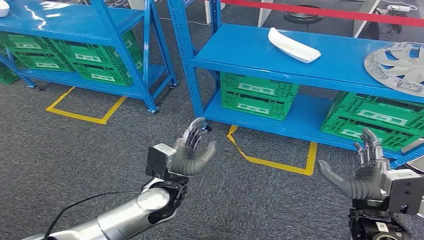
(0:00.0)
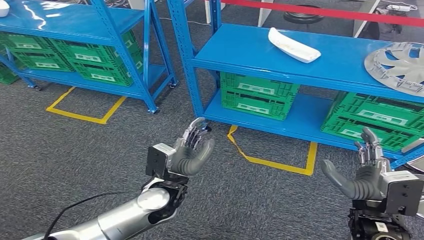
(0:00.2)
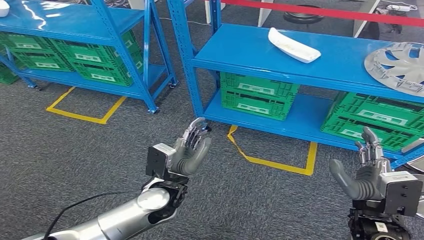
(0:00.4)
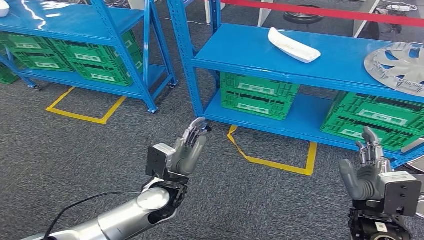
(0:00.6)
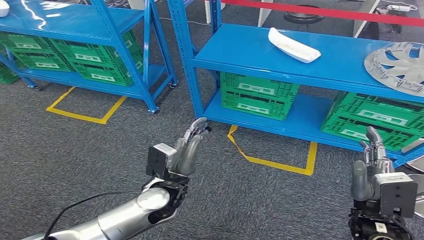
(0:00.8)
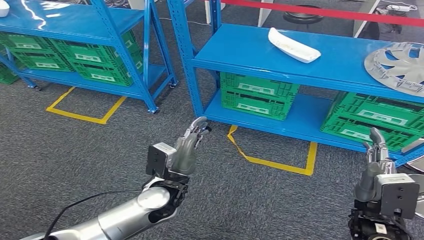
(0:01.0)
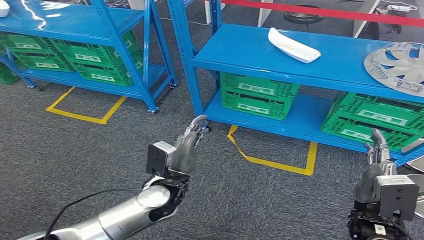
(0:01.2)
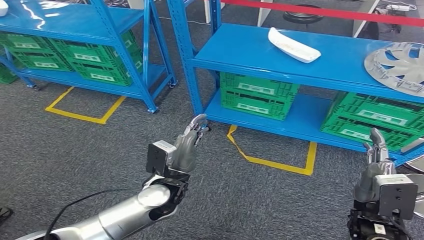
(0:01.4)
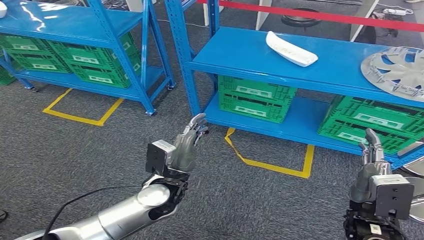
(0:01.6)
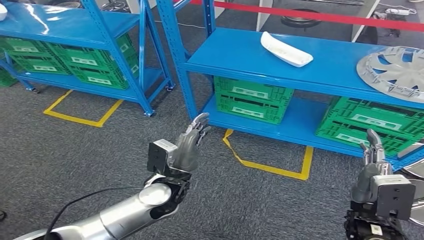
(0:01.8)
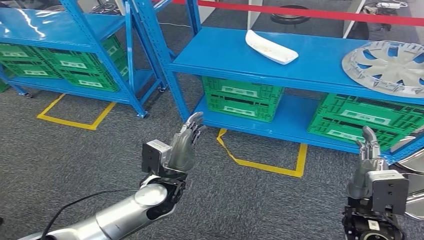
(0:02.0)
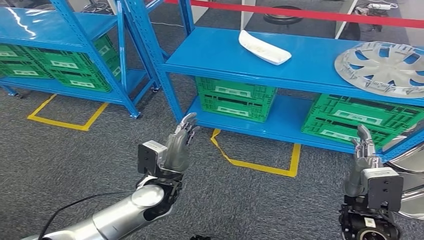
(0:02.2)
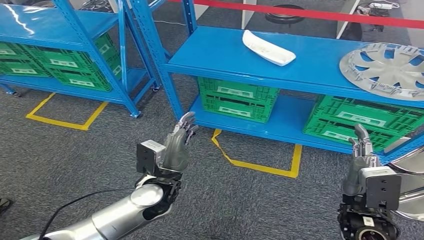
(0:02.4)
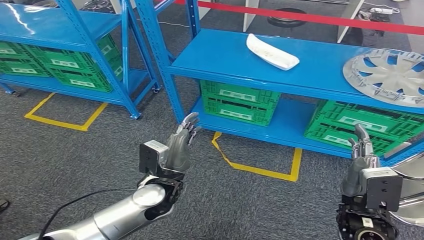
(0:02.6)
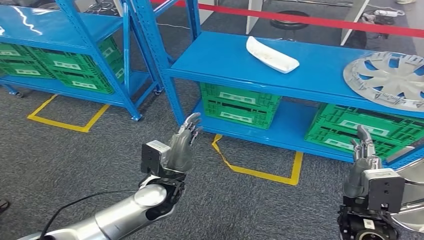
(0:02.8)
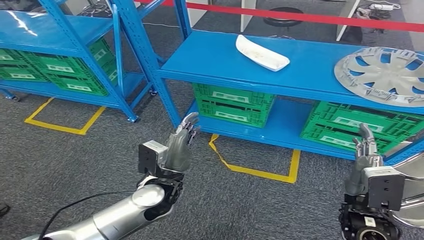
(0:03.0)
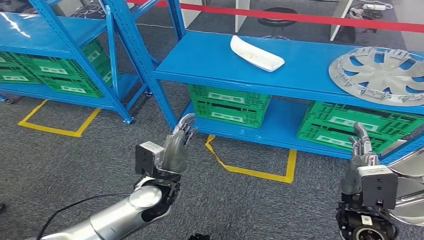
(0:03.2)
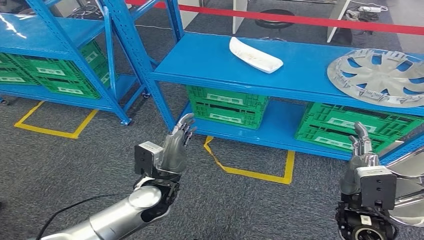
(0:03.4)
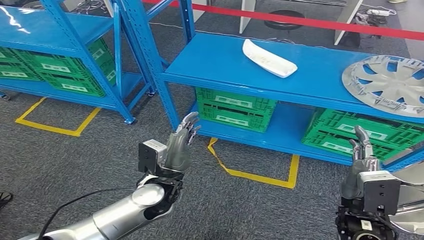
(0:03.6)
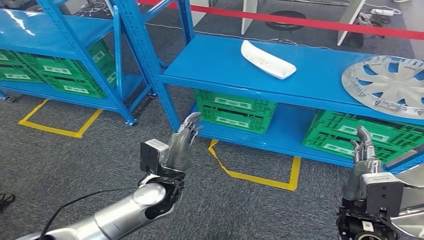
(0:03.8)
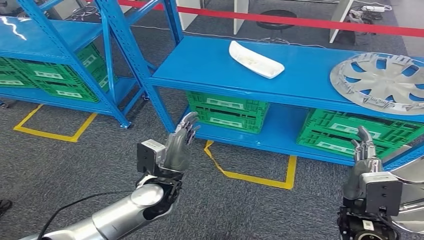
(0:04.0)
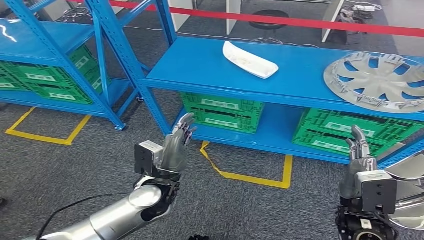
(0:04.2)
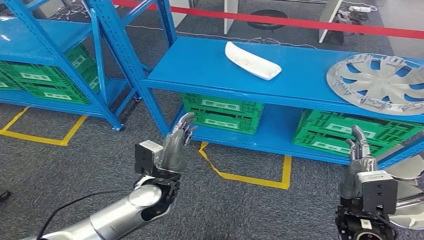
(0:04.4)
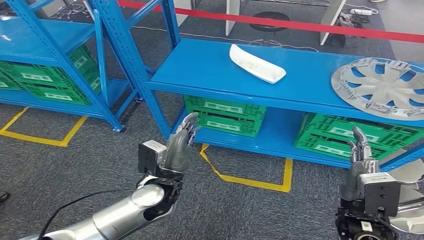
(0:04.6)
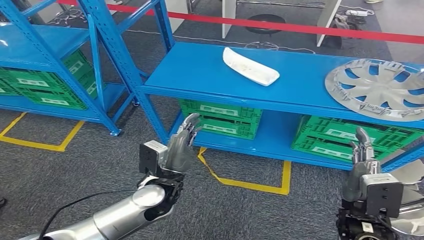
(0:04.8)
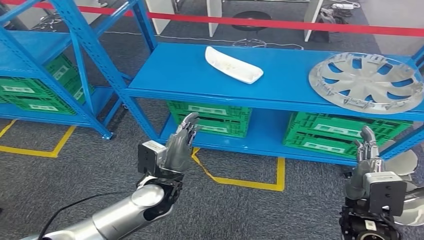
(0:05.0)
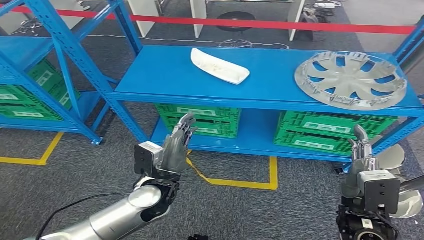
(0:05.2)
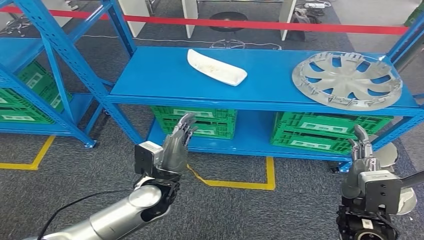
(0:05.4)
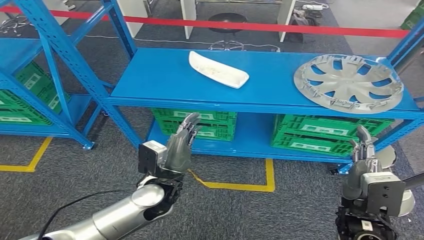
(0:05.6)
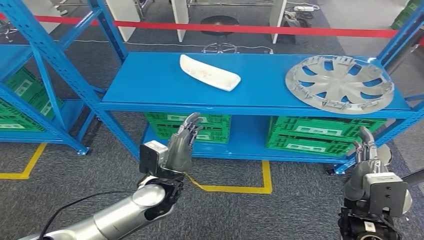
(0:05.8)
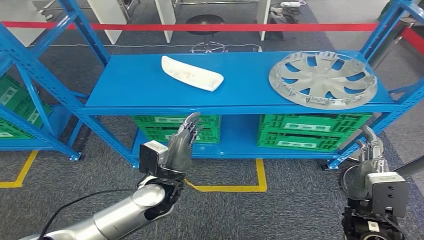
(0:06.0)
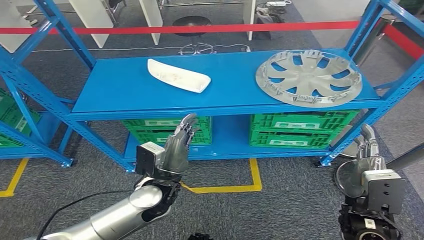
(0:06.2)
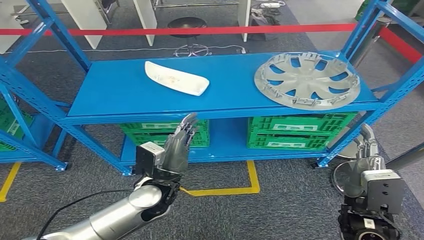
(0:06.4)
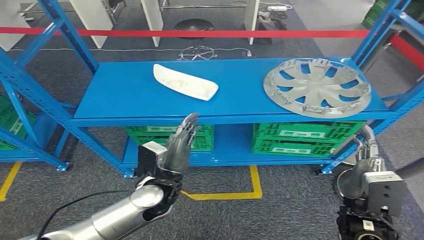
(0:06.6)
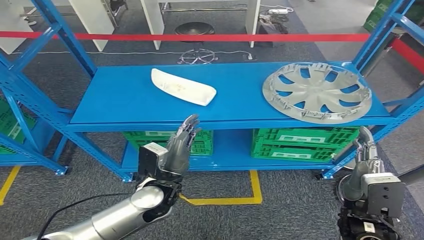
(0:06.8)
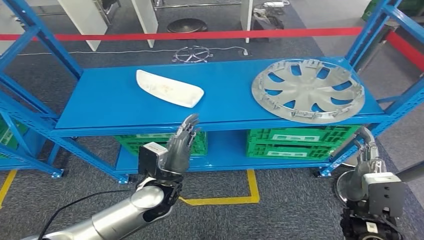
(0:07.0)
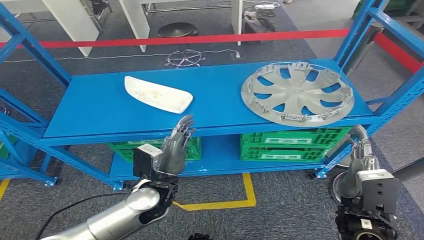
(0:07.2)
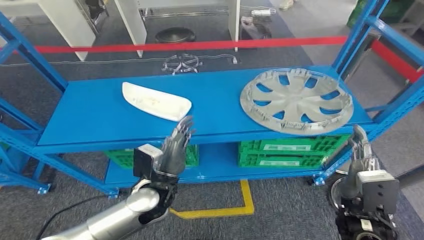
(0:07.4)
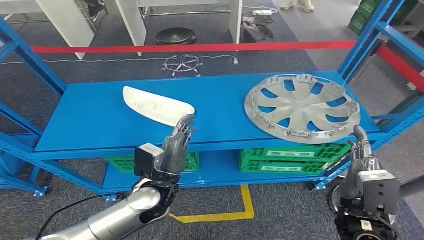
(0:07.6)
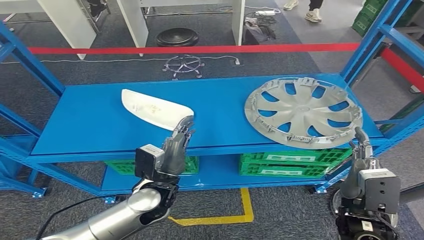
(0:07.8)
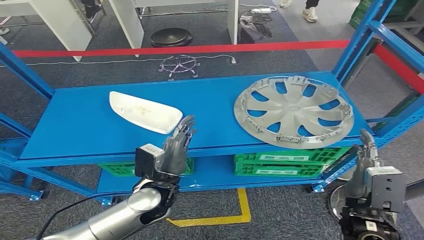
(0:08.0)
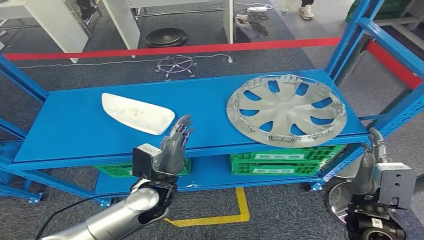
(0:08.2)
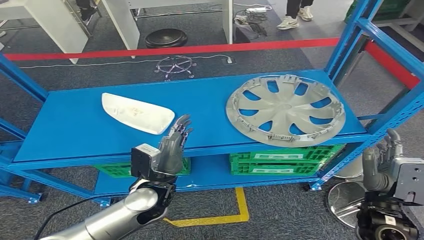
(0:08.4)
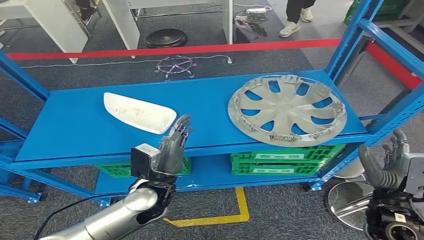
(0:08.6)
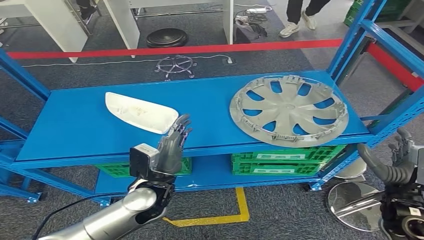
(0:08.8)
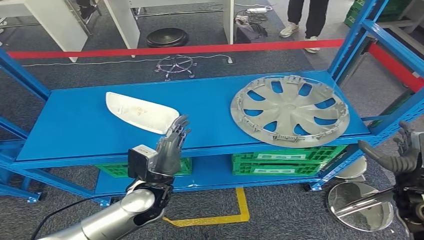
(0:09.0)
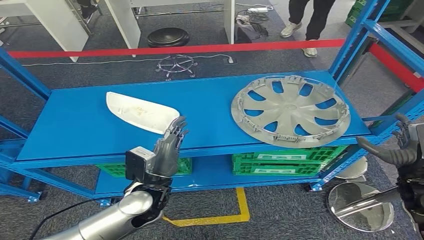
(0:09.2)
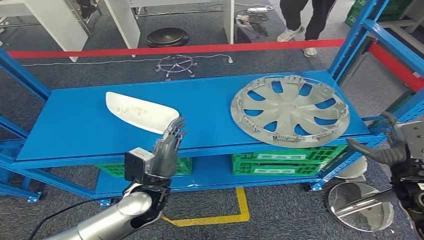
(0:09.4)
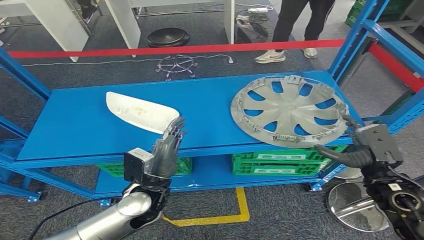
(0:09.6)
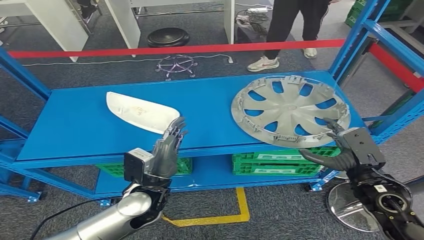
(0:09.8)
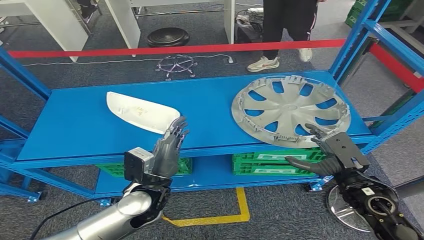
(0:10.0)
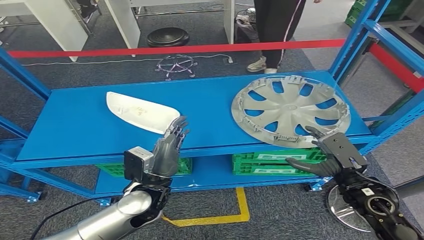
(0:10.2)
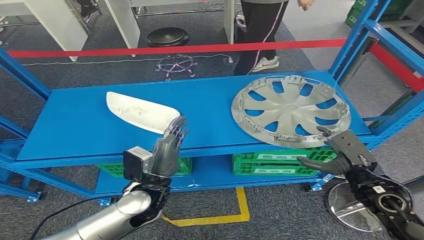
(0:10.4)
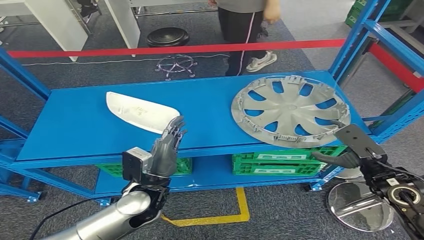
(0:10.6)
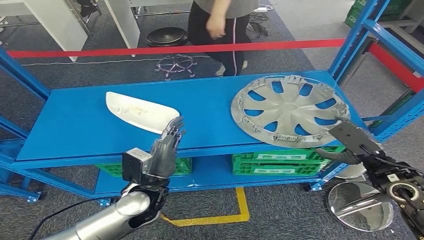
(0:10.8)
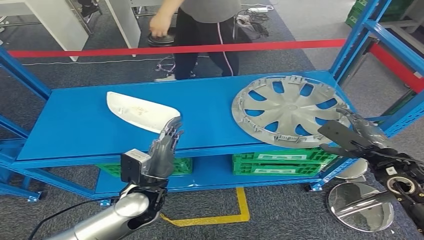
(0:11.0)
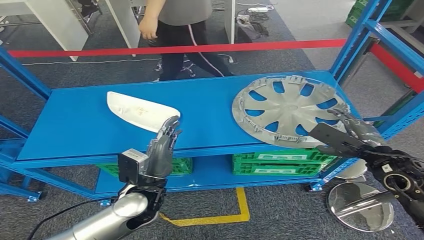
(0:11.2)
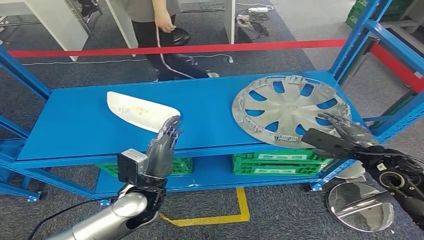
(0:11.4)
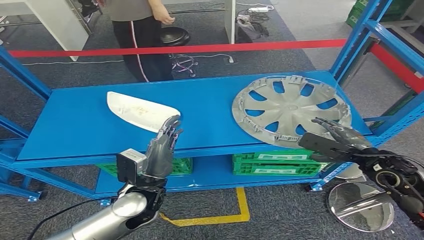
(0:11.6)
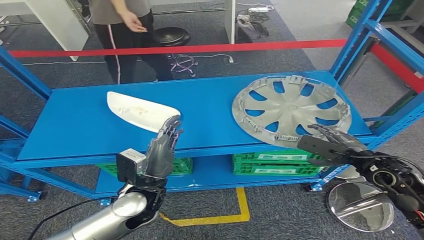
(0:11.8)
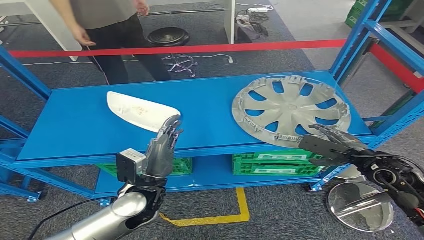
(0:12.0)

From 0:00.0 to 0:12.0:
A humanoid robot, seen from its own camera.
From 0:09.0 to 0:10.4: The right hand heads to the left, covering approximately 5 cm.
From 0:10.4 to 0:12.0: The right hand is displaced forward by about 5 cm.

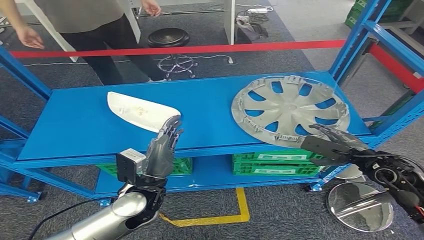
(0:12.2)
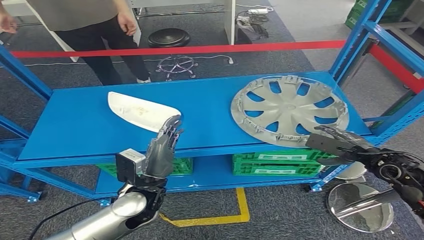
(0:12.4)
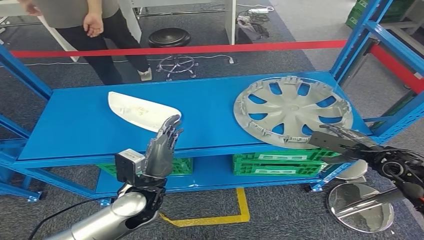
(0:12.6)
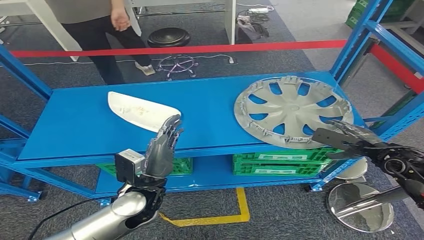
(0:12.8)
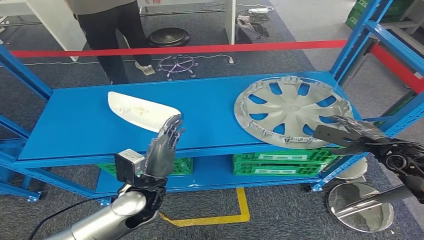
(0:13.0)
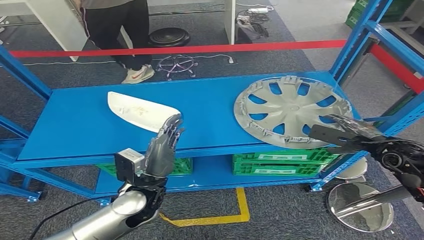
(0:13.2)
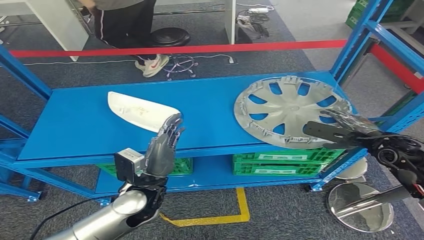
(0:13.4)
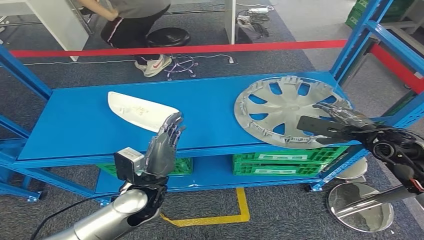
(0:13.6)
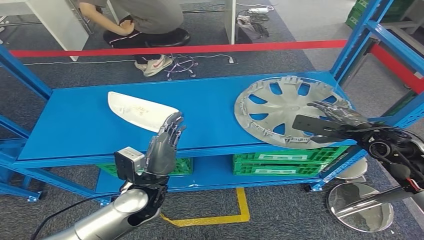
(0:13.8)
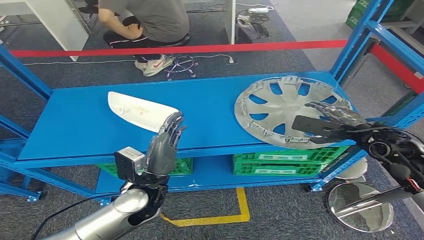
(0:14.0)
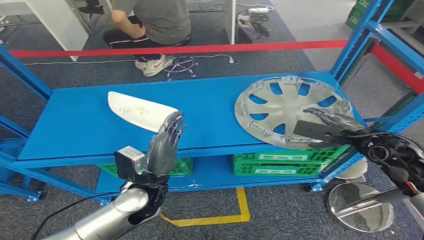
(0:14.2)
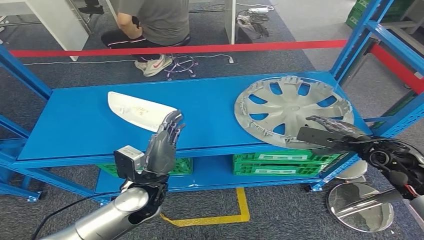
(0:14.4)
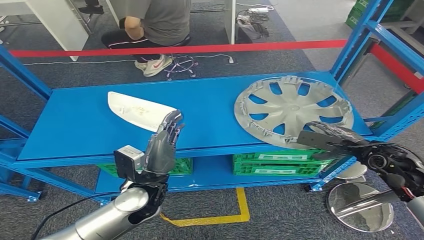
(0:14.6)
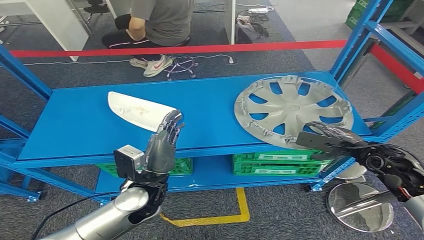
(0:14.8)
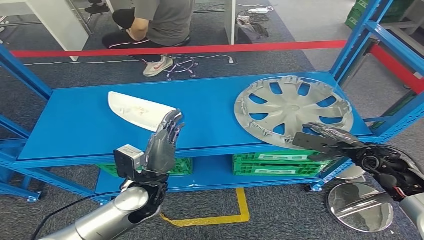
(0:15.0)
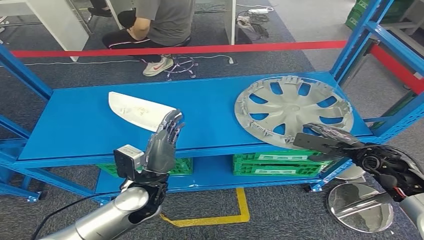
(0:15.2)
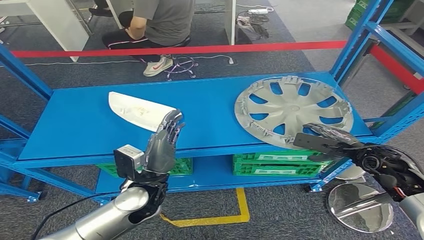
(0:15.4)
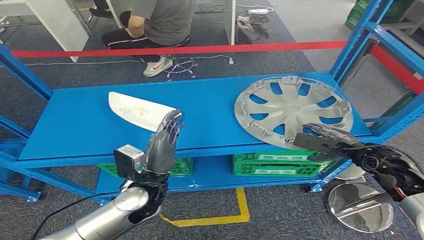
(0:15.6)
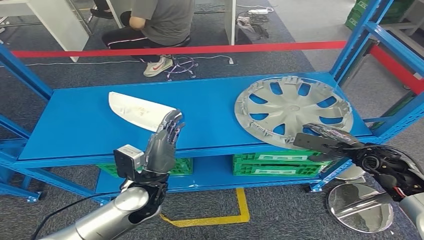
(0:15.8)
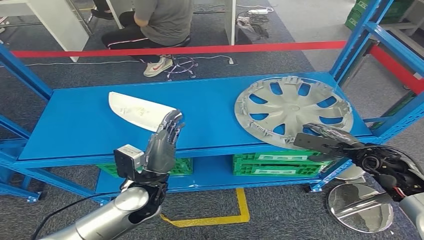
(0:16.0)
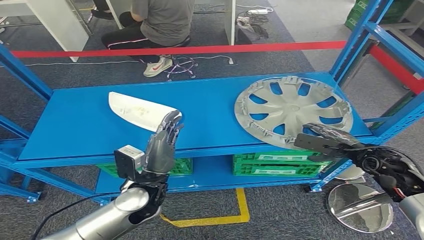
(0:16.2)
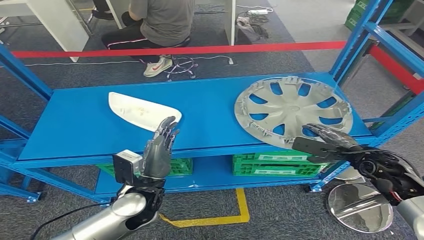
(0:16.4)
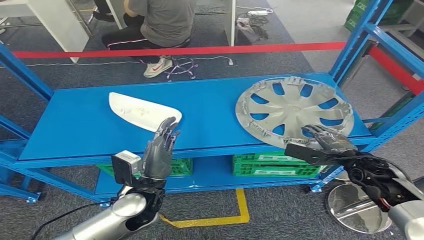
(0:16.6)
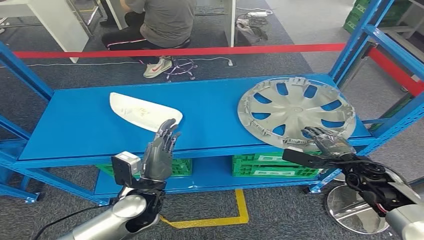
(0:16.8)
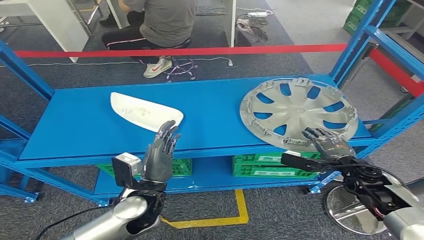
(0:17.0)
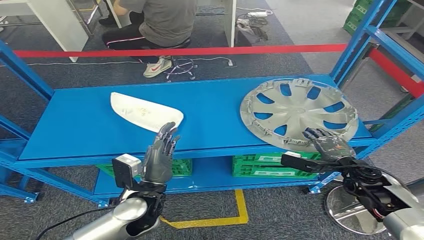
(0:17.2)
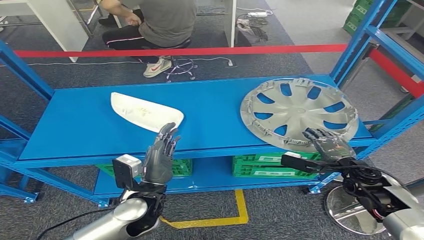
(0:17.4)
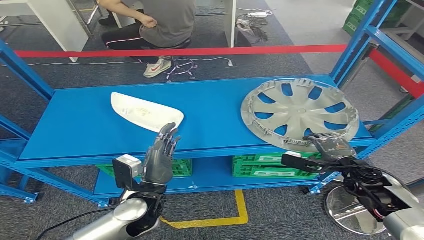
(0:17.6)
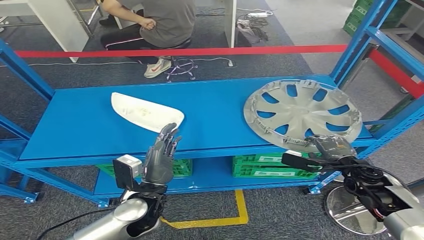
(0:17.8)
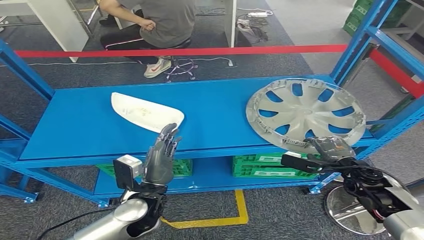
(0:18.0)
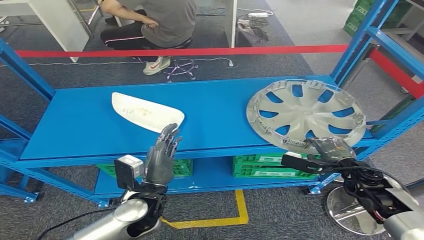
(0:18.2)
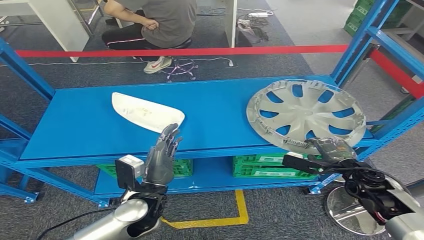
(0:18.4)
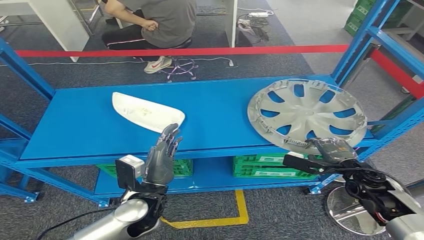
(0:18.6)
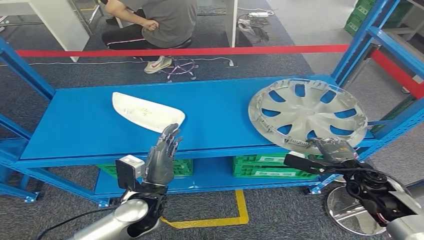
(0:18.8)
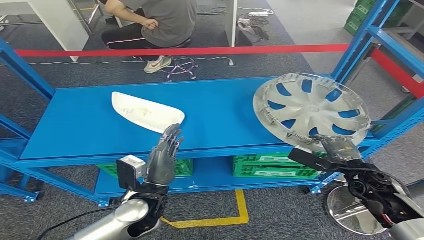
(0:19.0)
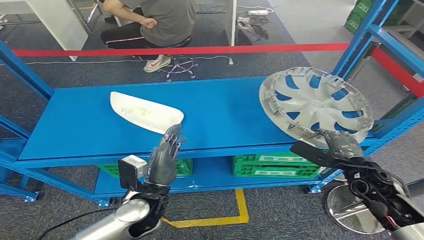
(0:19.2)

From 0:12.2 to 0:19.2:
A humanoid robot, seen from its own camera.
From 0:12.2 to 0:13.6: The right hand goes about 5 cm upward.
From 0:13.6 to 0:15.0: The right hand heads downward, covering about 5 cm.
From 0:15.0 to 0:16.4: The hands stay close to where they were, moving slightly.
